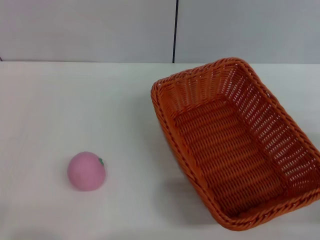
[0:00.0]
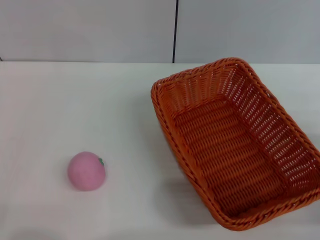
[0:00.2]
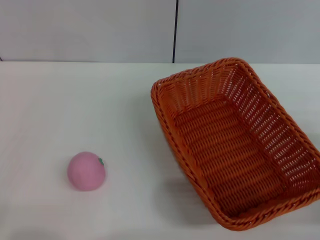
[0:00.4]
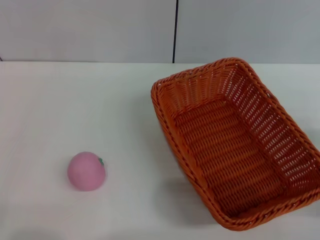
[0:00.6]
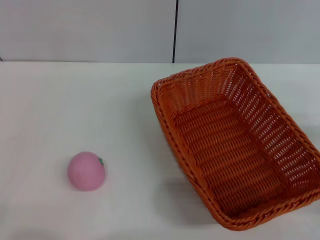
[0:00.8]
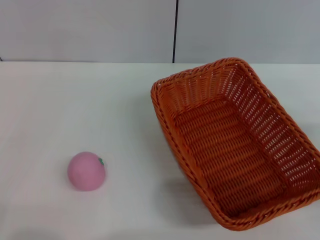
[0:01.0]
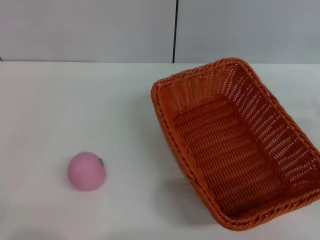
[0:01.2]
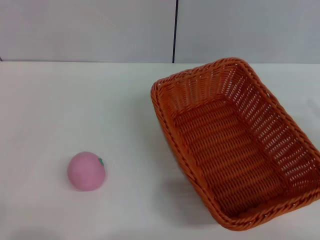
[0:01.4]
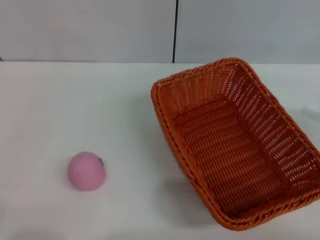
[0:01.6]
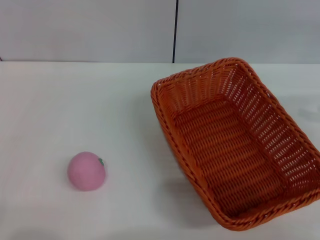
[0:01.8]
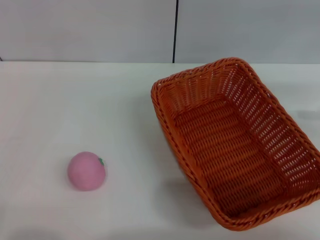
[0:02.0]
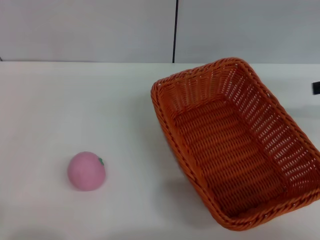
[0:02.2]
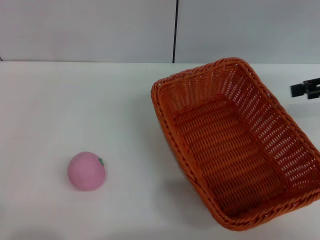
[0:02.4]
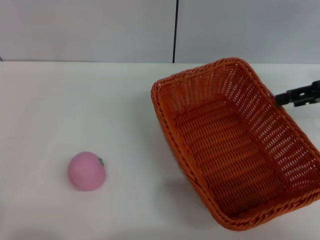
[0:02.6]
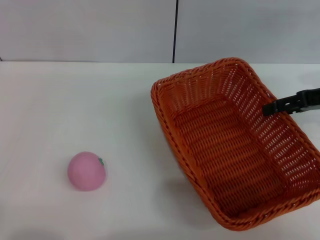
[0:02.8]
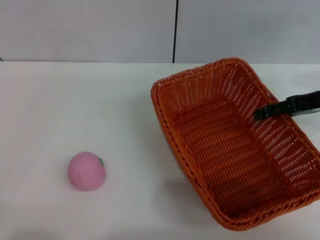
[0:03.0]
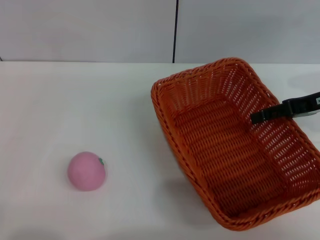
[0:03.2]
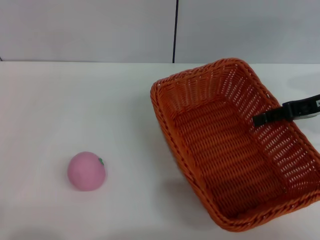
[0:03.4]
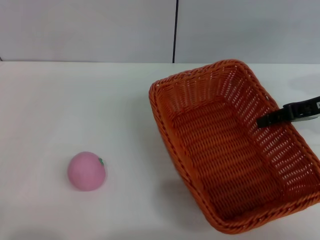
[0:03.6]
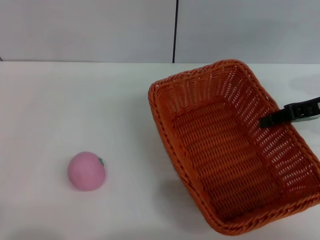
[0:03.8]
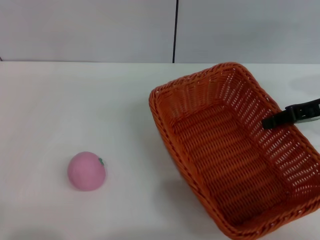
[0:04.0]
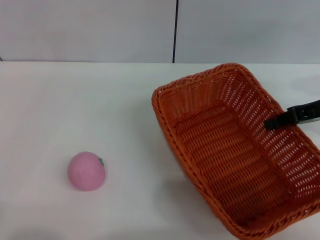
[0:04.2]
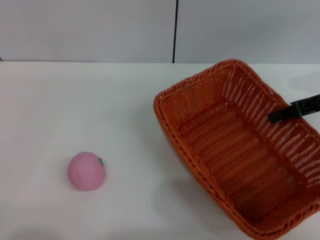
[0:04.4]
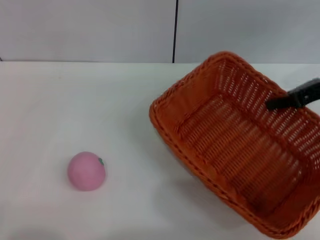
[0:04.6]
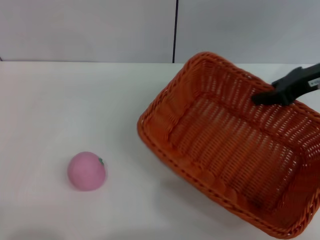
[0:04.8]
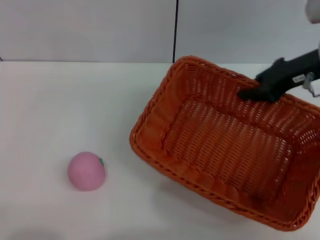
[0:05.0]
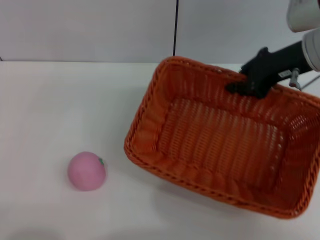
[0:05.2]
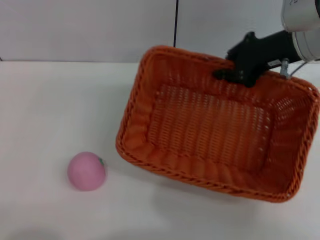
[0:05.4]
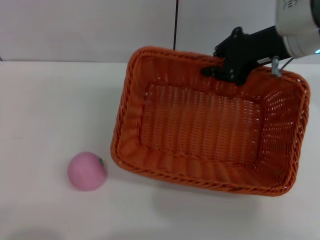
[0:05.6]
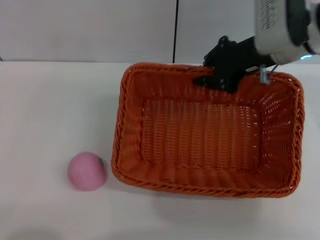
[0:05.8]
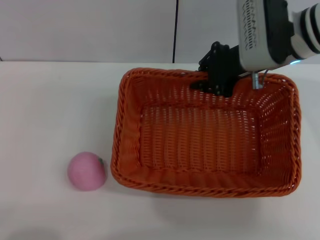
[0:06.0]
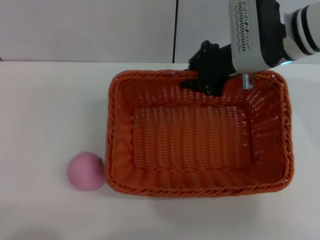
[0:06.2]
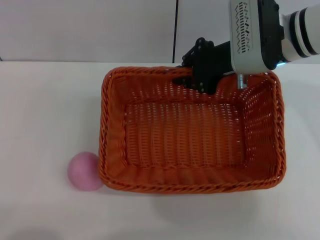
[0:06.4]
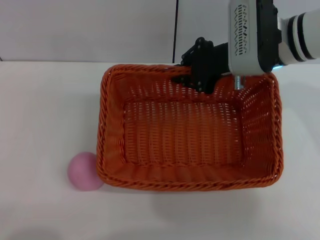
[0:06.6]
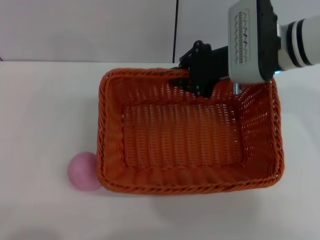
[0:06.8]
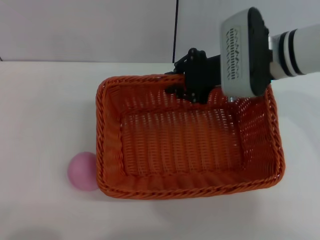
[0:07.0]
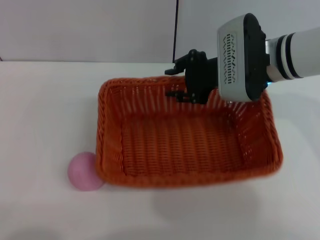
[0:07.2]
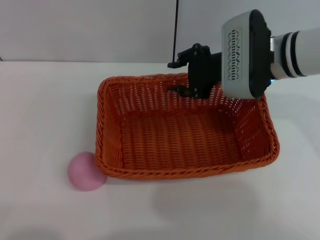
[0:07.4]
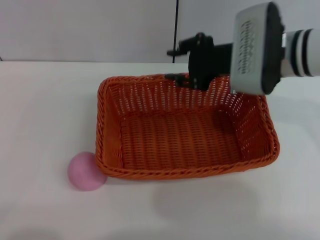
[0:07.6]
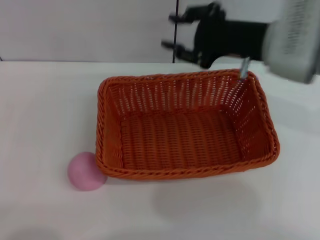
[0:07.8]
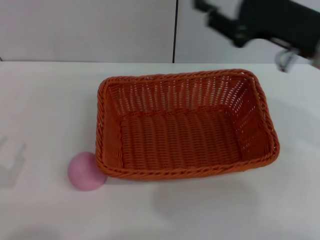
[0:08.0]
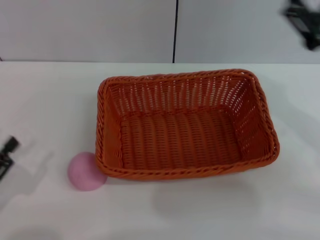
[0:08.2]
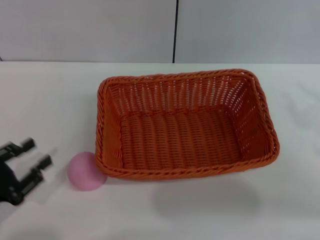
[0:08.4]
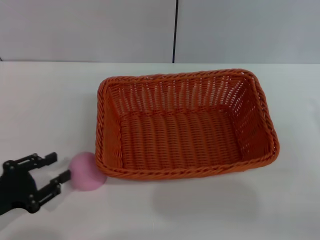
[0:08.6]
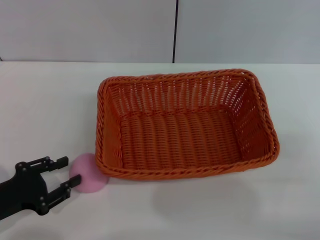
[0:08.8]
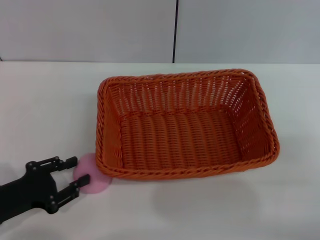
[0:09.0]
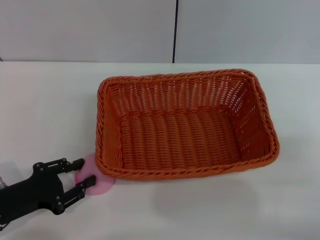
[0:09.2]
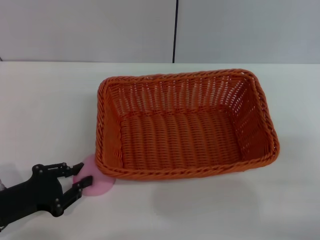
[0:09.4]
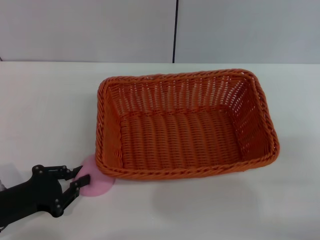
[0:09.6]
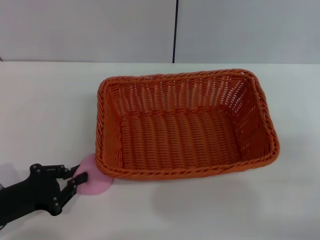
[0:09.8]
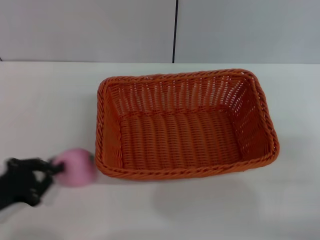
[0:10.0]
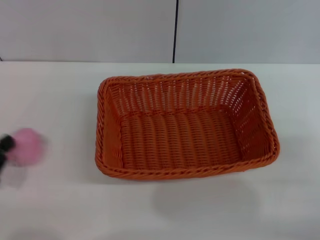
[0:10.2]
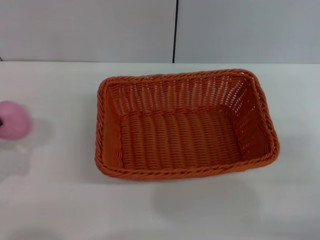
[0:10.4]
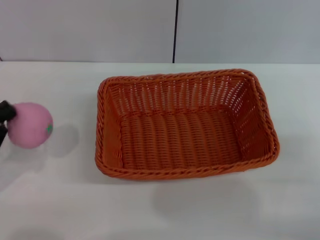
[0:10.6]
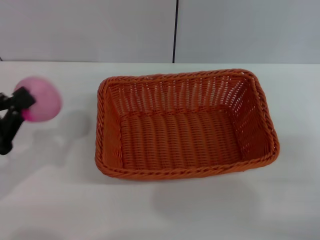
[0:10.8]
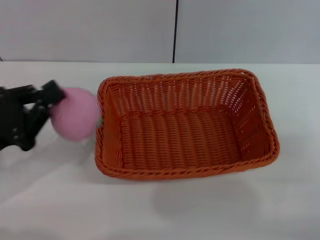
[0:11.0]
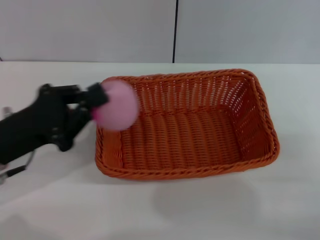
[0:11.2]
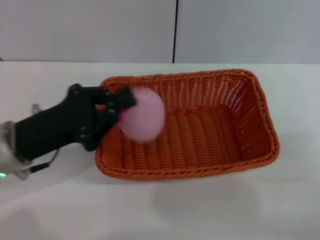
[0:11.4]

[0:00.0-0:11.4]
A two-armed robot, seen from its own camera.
Step, 0:00.0 to 0:05.0: Pick up the light basket with the right gripper.
Step, 0:05.2 to 0:07.6: Place the light basket in the center of view with the right gripper.
Step, 0:07.8 to 0:10.4: Pick up the peach with the left gripper.
0:00.0 to 0:01.4: The right gripper travels upward, to the right and forward by about 10 cm, and opens its fingers.
0:01.4 to 0:02.8: The right gripper shifts roughly 15 cm forward, to the left and upward.
0:02.8 to 0:04.2: The right gripper closes its fingers.
0:04.2 to 0:05.6: The right gripper is displaced to the left and upward by roughly 10 cm.
0:05.6 to 0:07.2: The right gripper is displaced to the left and downward by about 10 cm.
0:07.2 to 0:08.6: The left gripper travels forward by roughly 5 cm. The right gripper moves to the right and backward, approximately 30 cm.
0:08.6 to 0:10.0: The left gripper closes up.
0:10.0 to 0:11.4: The left gripper is displaced to the right, forward and upward by about 15 cm.

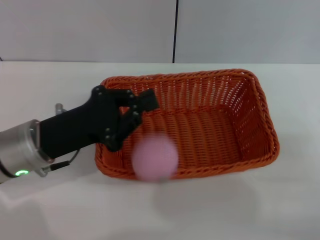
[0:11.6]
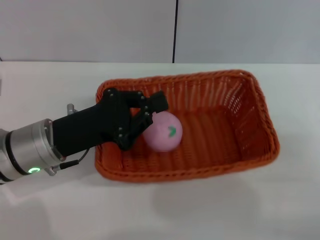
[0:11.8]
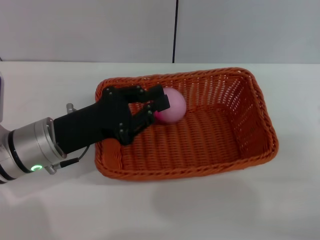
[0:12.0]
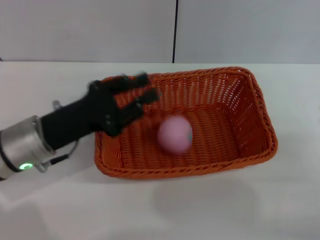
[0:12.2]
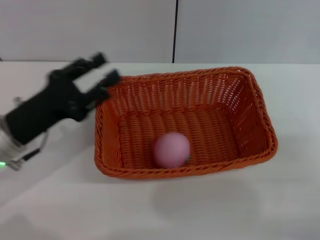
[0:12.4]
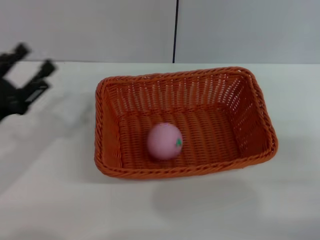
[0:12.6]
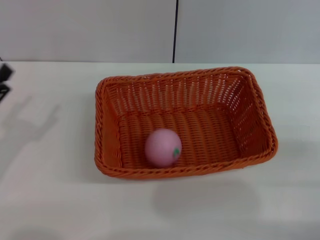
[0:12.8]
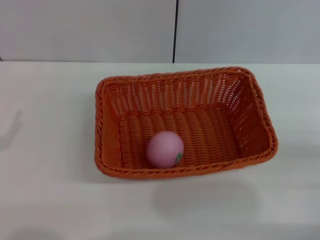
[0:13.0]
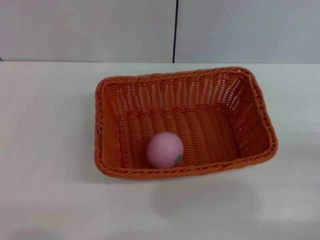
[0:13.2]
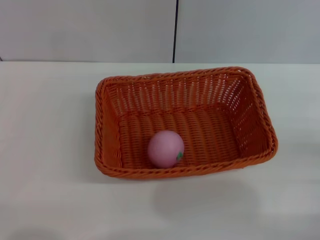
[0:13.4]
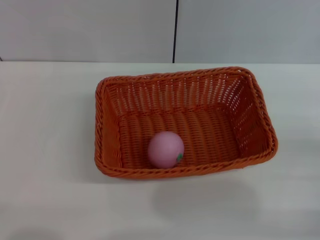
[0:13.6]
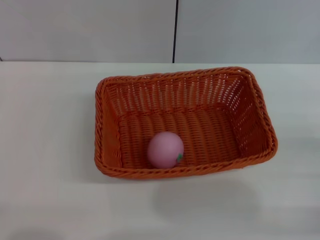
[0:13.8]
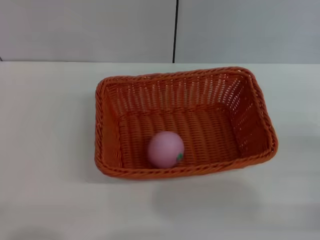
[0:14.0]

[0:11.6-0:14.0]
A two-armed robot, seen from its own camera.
0:11.6 to 0:12.8: The left gripper goes about 15 cm to the left and backward, and opens.
0:12.8 to 0:14.0: The left gripper travels backward by roughly 5 cm.
